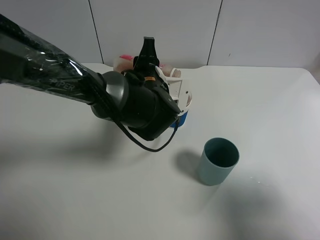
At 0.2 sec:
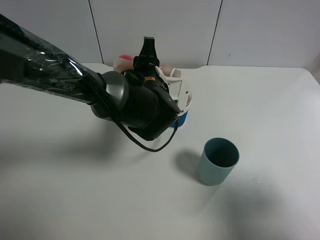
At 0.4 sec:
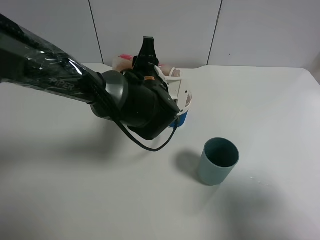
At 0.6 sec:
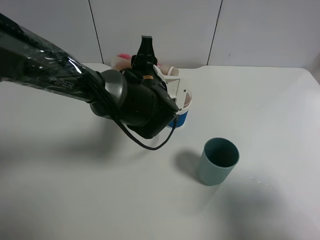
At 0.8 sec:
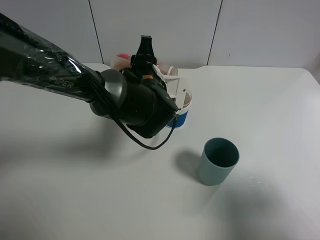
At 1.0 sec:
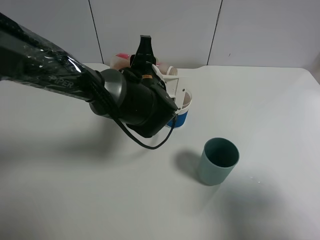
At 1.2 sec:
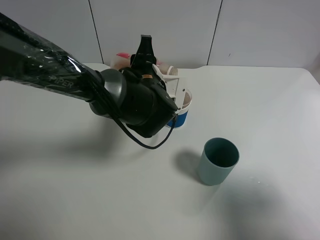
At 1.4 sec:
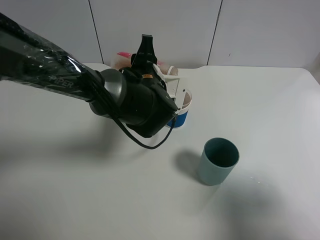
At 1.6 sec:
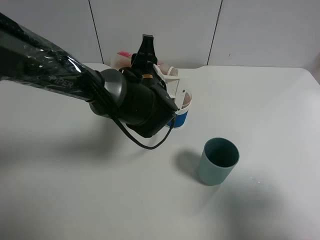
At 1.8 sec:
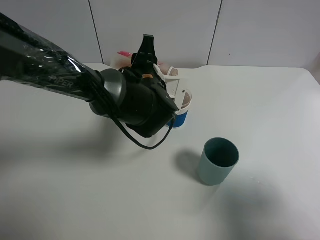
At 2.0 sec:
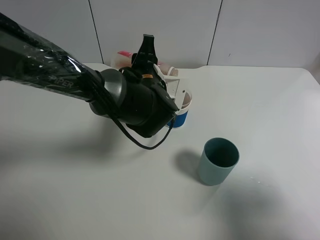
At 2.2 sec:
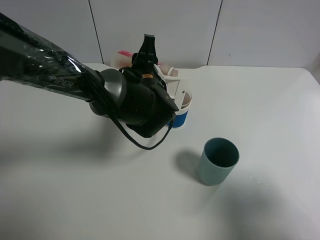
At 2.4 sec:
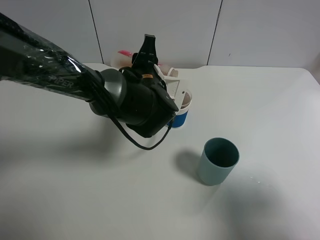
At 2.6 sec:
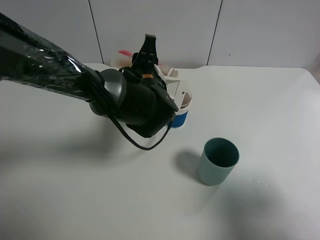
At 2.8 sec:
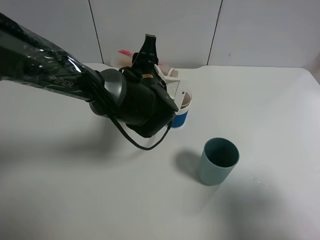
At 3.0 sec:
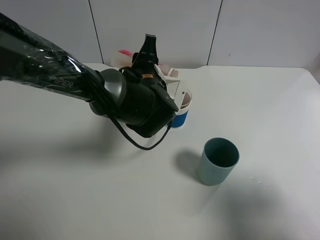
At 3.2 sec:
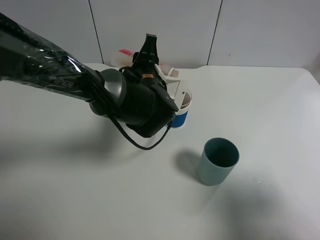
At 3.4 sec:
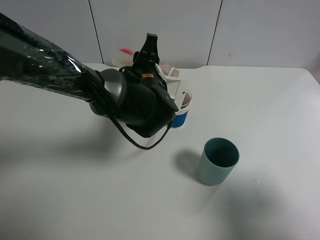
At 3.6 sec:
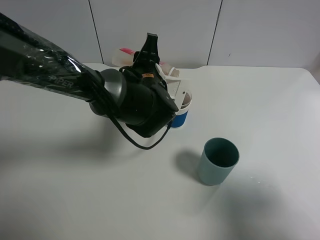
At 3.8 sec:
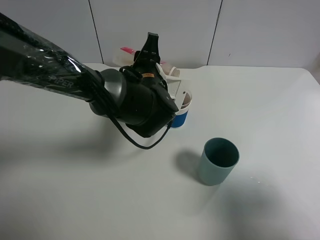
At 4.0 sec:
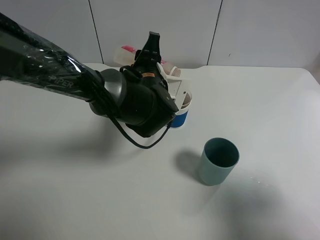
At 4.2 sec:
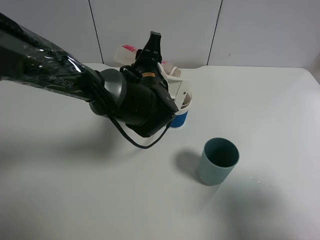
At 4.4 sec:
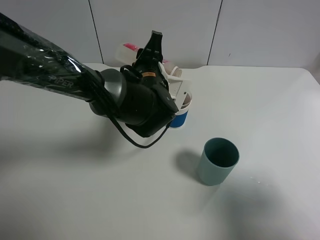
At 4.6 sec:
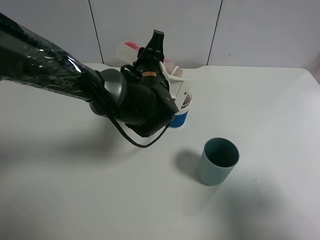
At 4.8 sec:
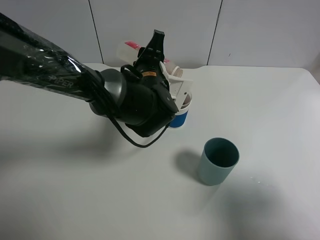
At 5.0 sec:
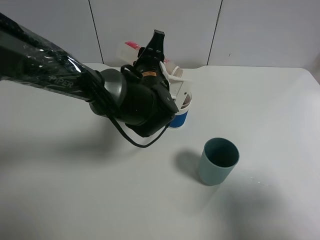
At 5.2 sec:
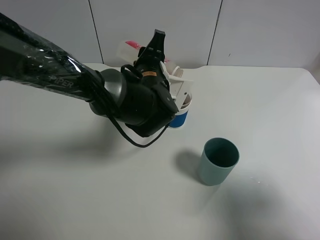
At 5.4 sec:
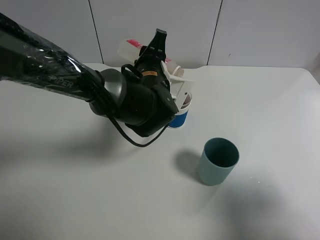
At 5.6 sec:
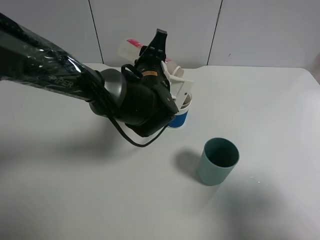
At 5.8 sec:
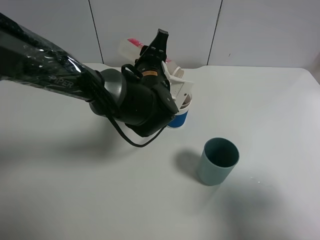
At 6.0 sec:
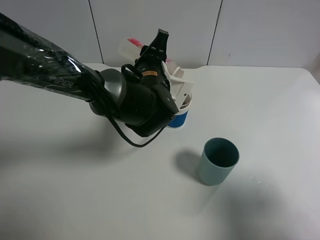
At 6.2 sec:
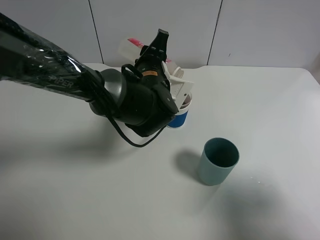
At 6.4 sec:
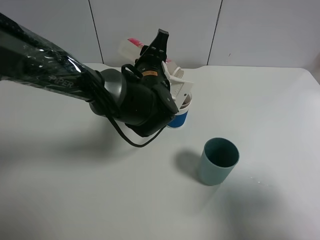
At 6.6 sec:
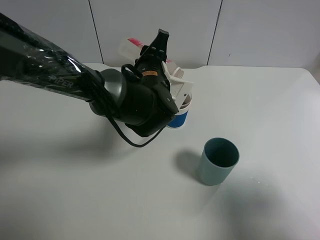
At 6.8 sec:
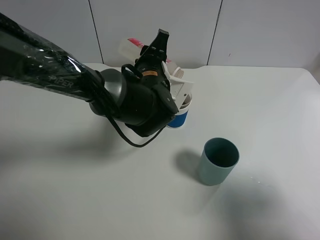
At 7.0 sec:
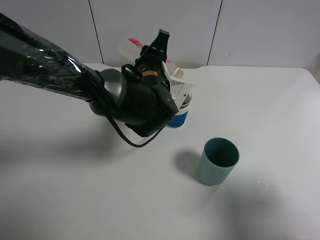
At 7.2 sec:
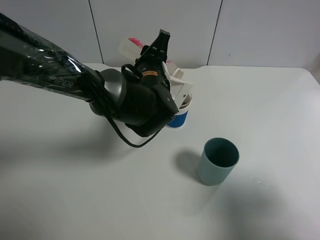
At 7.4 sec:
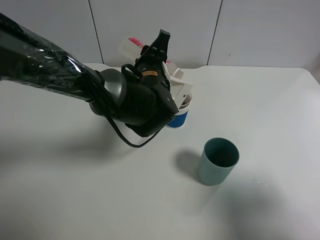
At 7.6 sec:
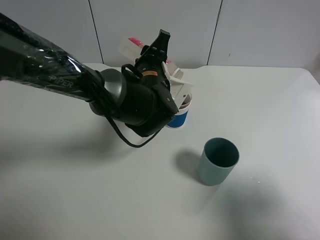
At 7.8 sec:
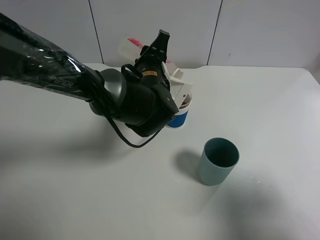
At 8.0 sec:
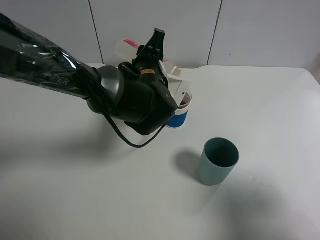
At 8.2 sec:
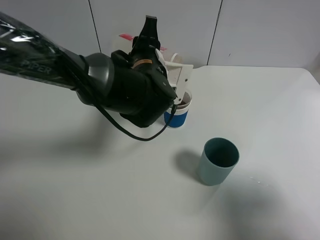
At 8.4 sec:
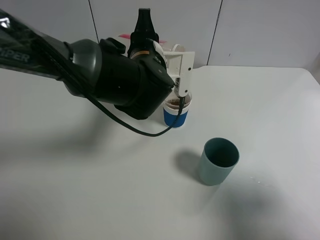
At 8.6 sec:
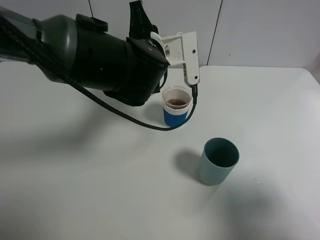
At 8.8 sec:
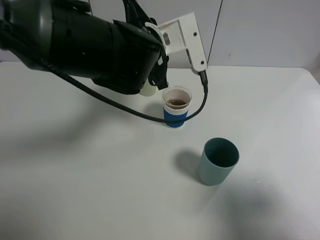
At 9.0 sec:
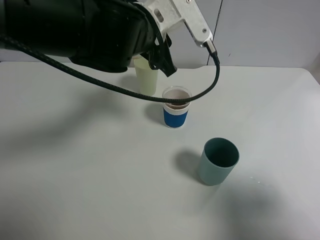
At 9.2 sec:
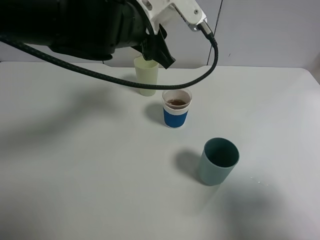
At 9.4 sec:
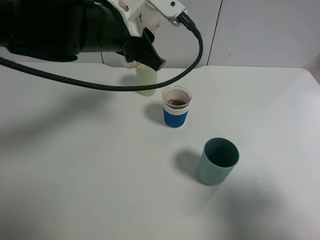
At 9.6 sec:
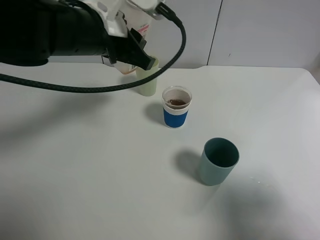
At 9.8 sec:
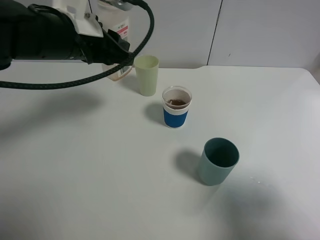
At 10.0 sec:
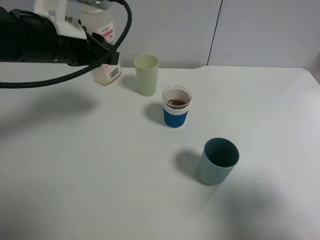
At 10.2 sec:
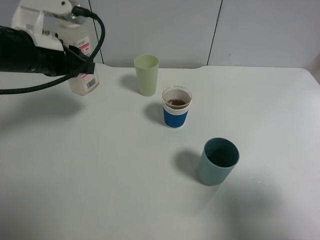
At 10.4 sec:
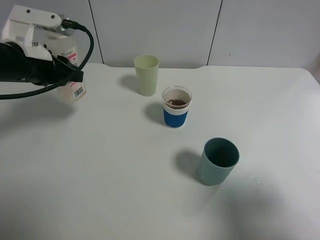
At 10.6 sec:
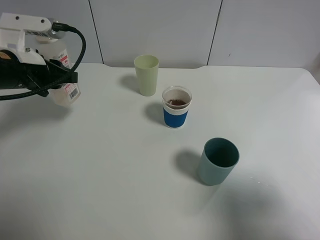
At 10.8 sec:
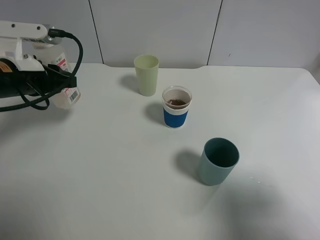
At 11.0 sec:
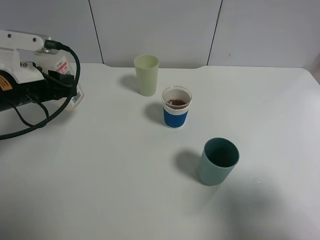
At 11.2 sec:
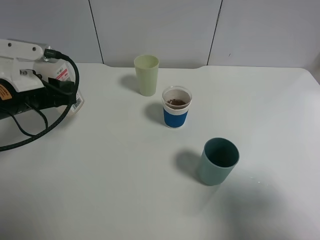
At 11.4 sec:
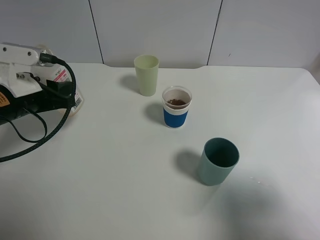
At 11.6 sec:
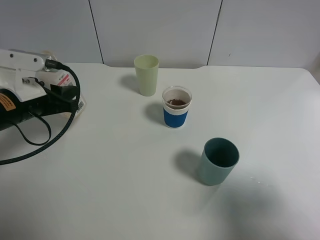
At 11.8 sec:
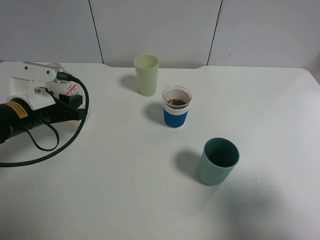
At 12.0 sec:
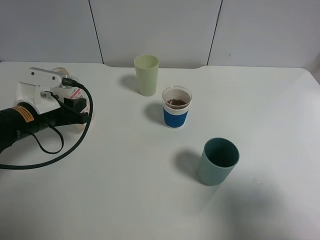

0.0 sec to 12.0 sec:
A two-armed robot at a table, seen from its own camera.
Task of the whole recording: use a gripper to hold the bottle of the drink and pour it into a random cup.
Step, 0.0 sec to 8.4 sec: Pour the cranberry juice into the paper cup with the left gripper.
0.0 sec to 1.6 sec: Both grippers stay about where they are.
1.6 sec to 3.0 sec: The two grippers keep their place.
3.0 sec to 6.0 sec: There are only small adjustments of the grippers.
6.0 sec to 7.6 sec: The two grippers keep their place.
7.6 sec to 9.0 sec: The left gripper shifts roughly 10 cm upward.
9.0 sec to 10.4 sec: The left gripper heads to the left, covering about 20 cm.
10.4 sec to 12.0 sec: The left gripper shifts roughly 10 cm downward.

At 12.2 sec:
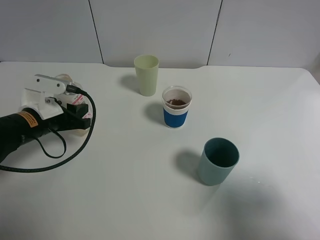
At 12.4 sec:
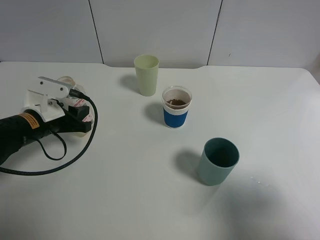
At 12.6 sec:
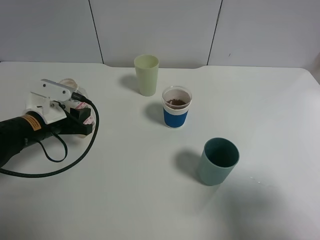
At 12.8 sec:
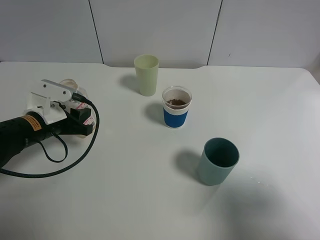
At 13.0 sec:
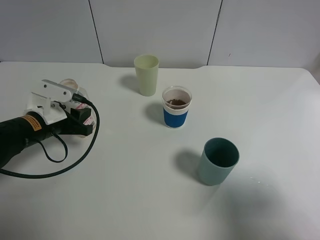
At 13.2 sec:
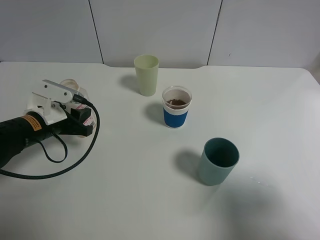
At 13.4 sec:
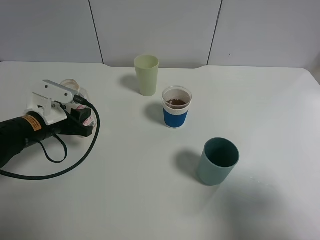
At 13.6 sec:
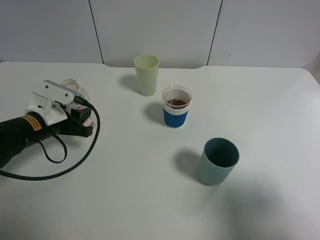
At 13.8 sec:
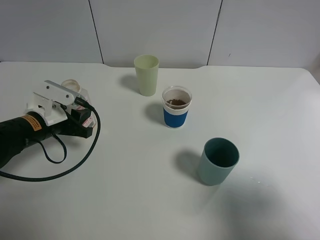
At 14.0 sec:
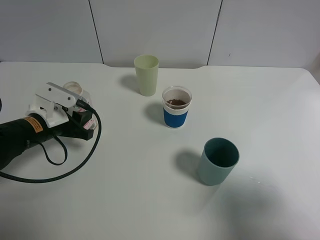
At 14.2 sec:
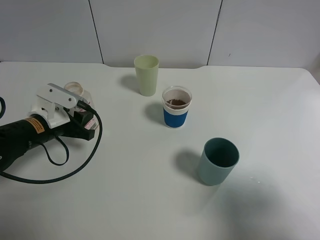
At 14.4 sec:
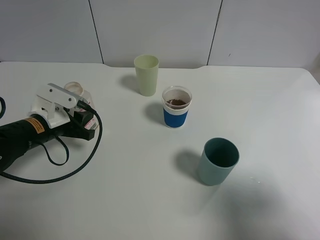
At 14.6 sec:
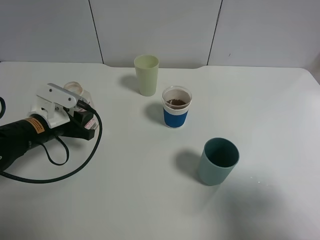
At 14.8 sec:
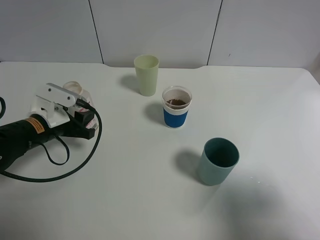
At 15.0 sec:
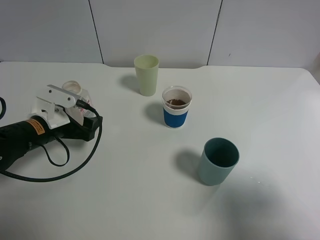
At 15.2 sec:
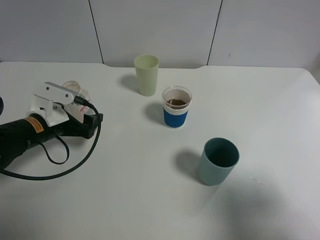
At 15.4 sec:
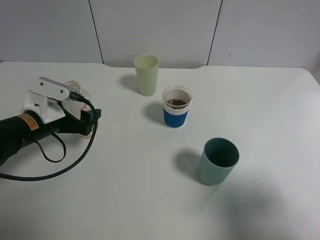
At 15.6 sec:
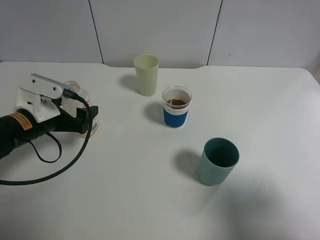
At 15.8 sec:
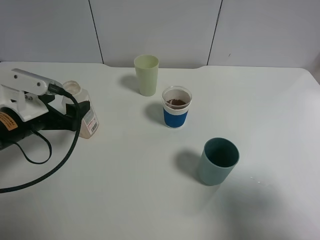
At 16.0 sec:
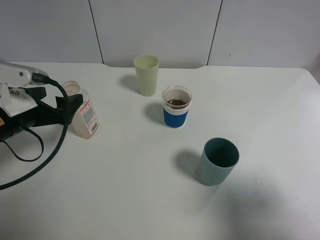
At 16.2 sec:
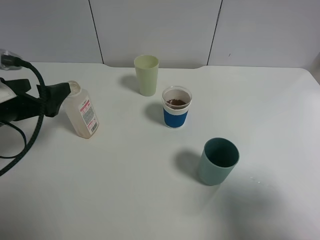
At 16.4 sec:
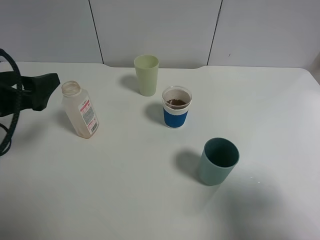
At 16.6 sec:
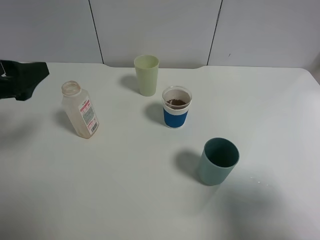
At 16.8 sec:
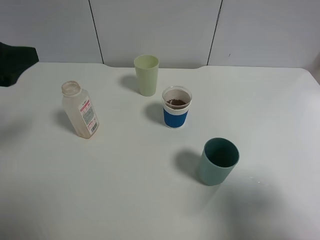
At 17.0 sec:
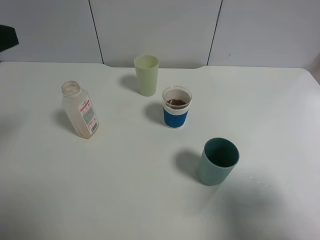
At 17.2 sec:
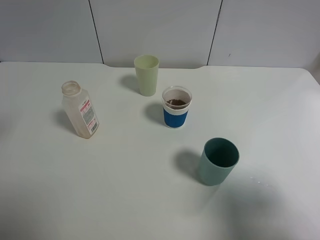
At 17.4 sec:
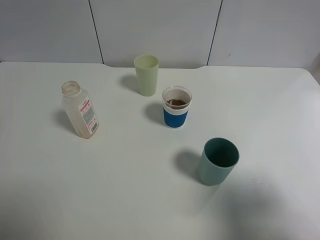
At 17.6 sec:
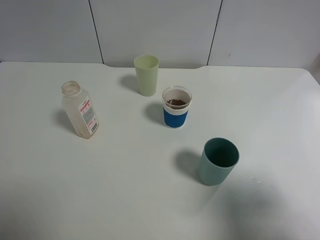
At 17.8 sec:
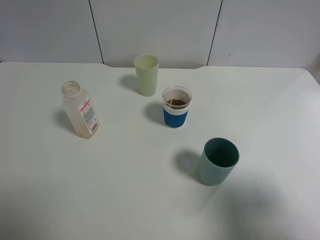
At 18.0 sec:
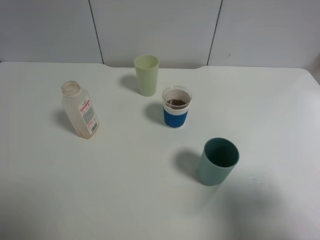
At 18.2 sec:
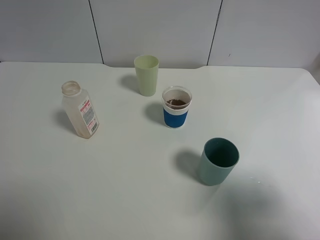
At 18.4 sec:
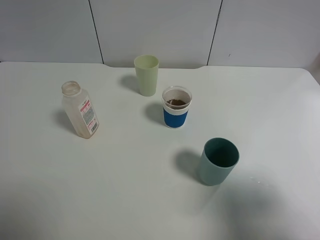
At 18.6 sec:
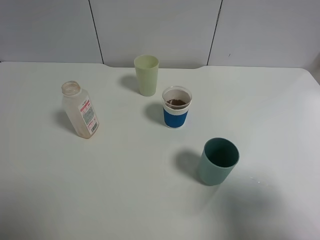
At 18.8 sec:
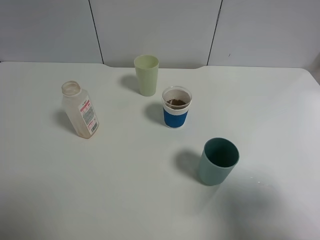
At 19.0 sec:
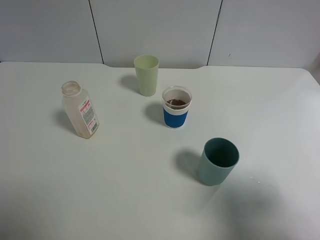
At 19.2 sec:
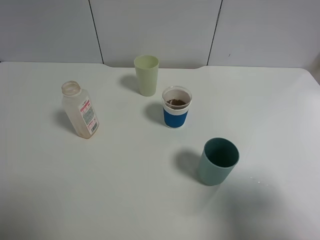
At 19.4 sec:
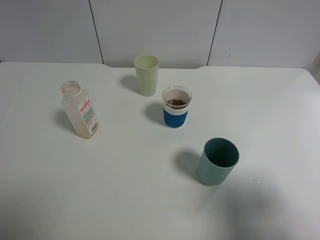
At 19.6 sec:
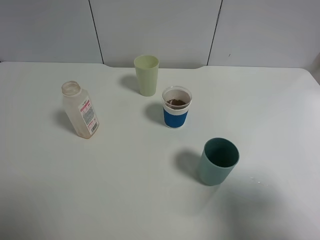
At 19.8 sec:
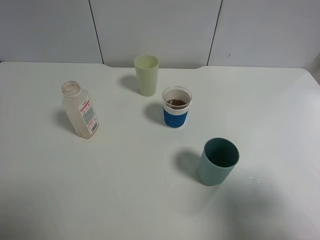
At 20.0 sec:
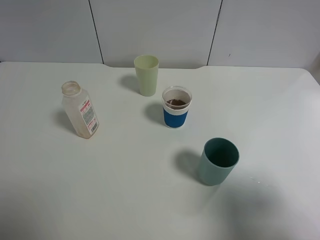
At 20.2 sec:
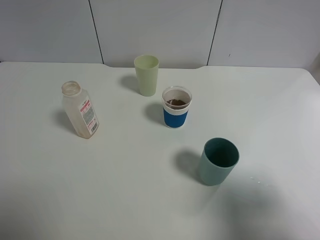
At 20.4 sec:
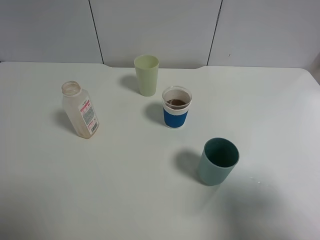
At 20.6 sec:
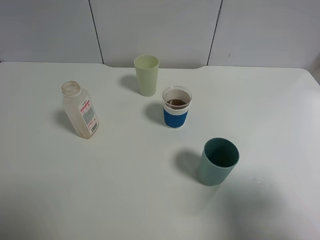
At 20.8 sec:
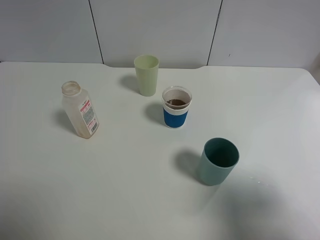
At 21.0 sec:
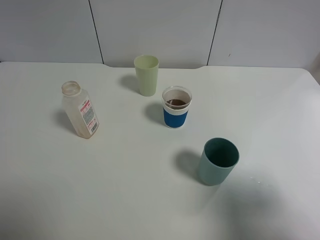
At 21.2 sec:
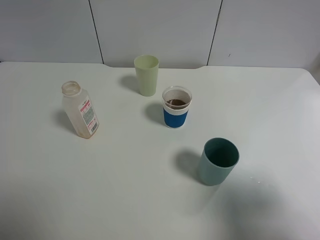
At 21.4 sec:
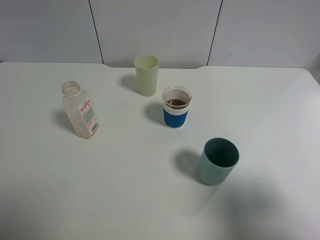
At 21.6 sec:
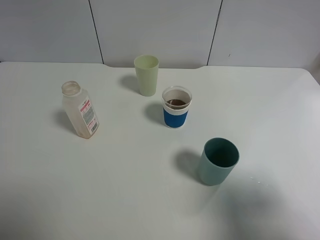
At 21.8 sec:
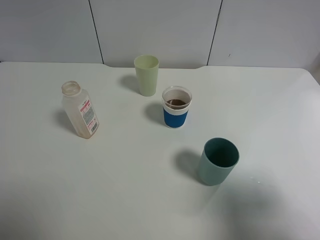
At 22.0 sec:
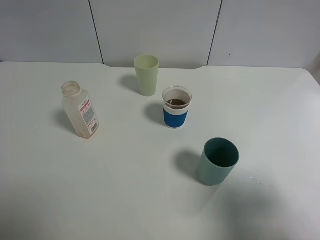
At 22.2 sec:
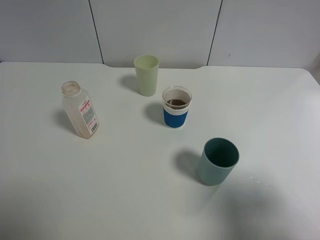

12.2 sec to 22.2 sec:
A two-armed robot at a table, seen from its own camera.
Task of the whole recording: use a gripper to hold the bottle of the drink and pour it into a random cup.
Step, 12.2 sec to 15.6 sec: Place the cranberry juice bottle on the table with the left gripper.
12.2 sec to 13.6 sec: The grippers make only small movements.
13.6 sec to 15.0 sec: The left gripper opens up.
15.0 sec to 16.4 sec: The left gripper moves upward and backward, about 15 cm.
16.4 sec to 18.0 sec: The left gripper goes roughly 20 cm upward and backward.
